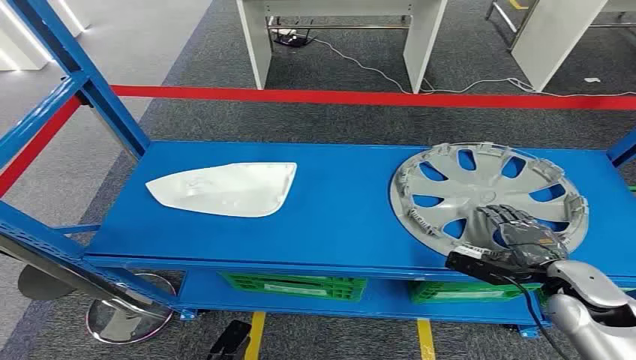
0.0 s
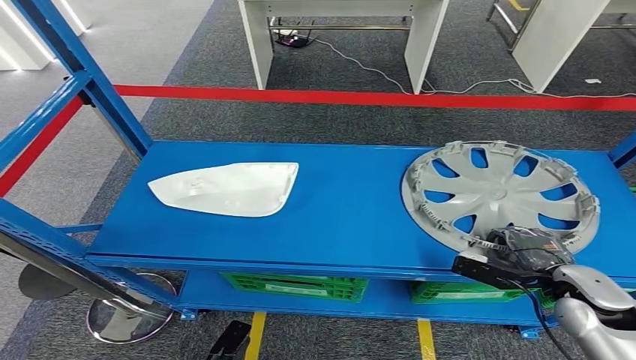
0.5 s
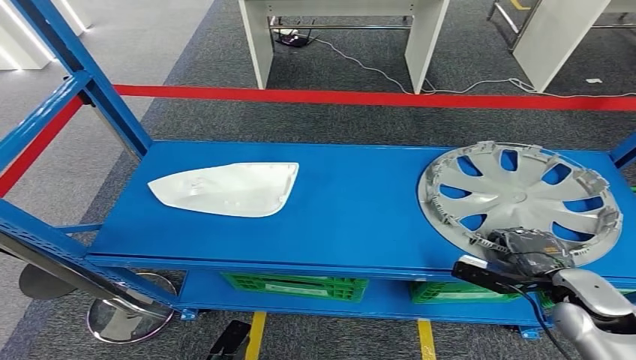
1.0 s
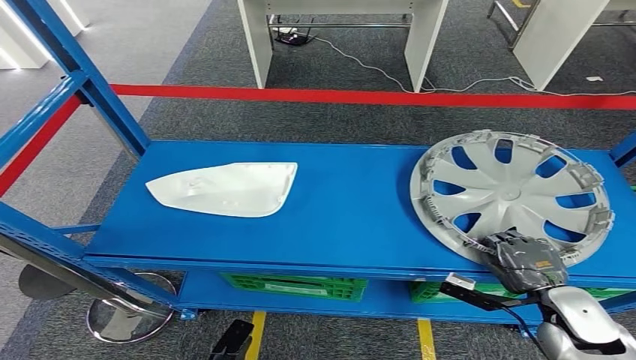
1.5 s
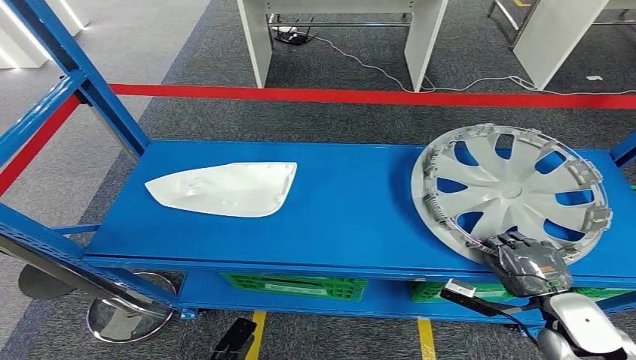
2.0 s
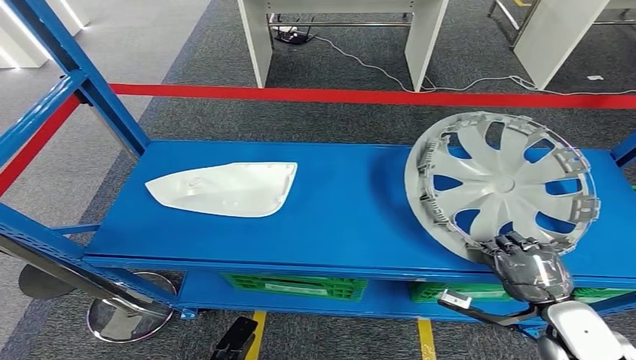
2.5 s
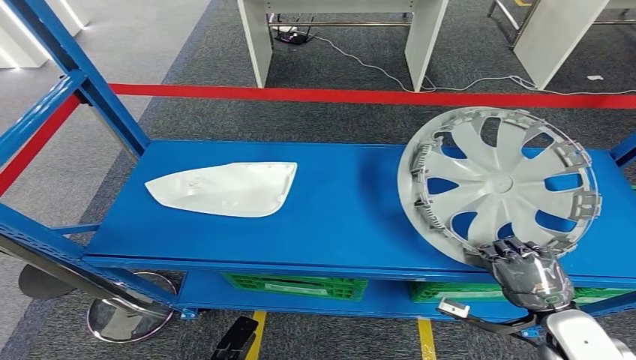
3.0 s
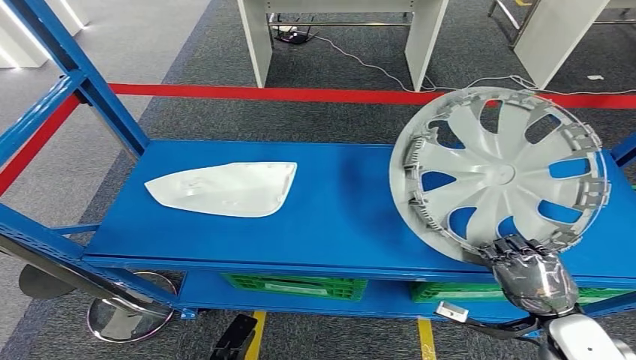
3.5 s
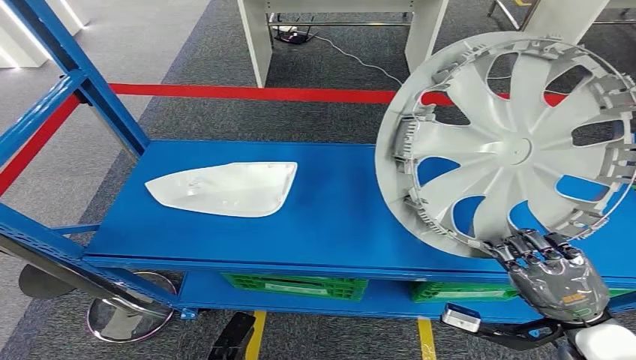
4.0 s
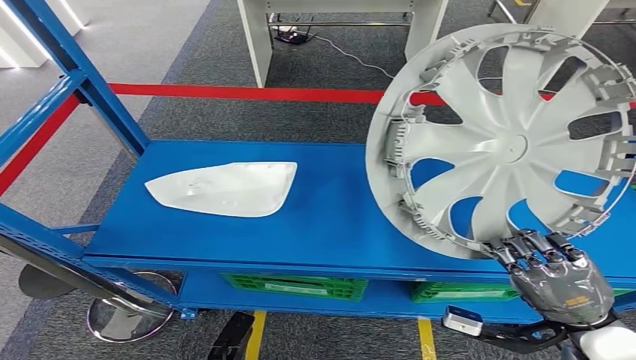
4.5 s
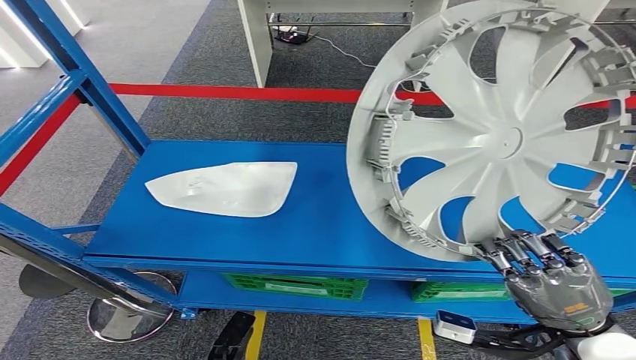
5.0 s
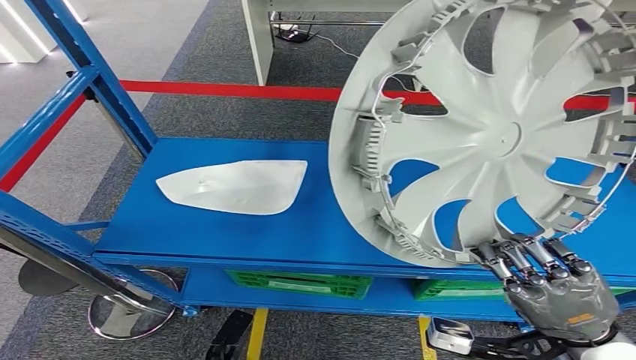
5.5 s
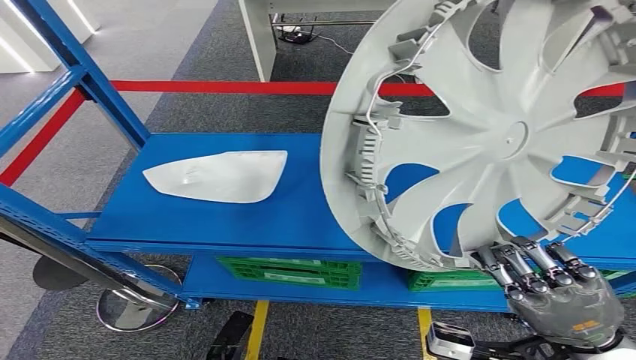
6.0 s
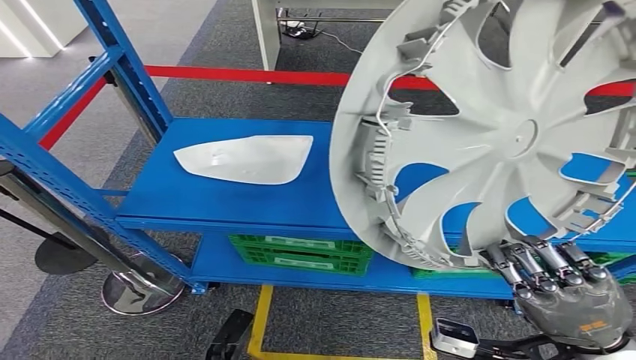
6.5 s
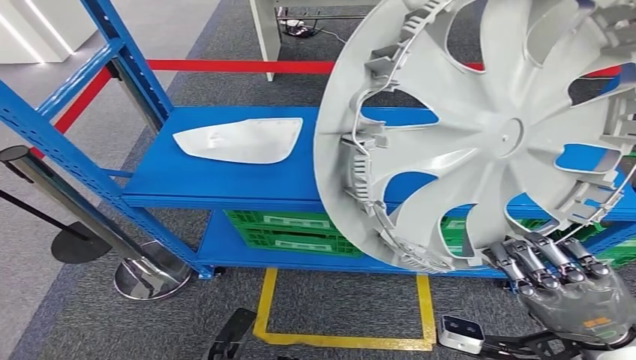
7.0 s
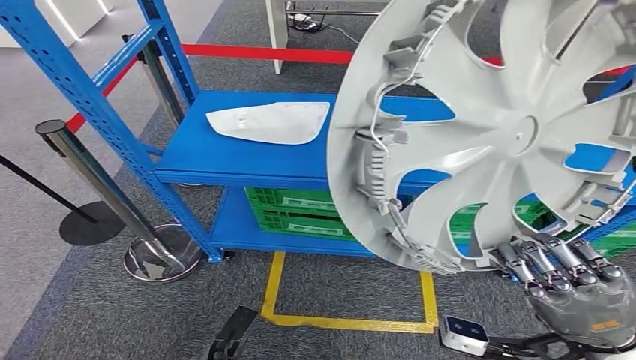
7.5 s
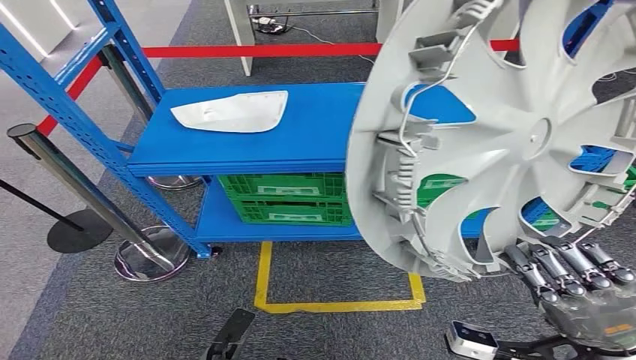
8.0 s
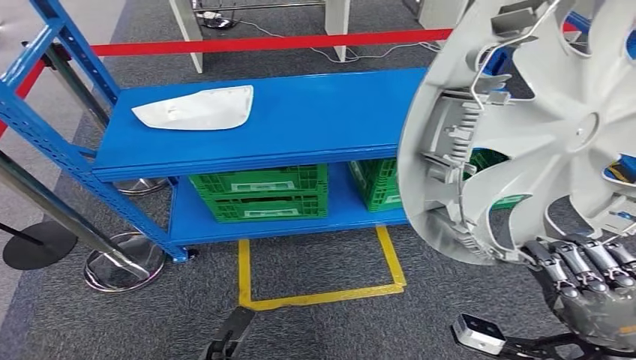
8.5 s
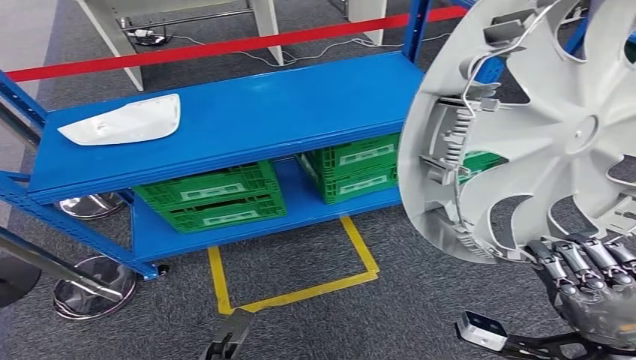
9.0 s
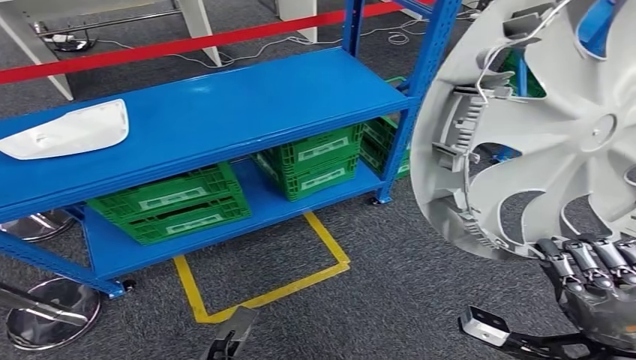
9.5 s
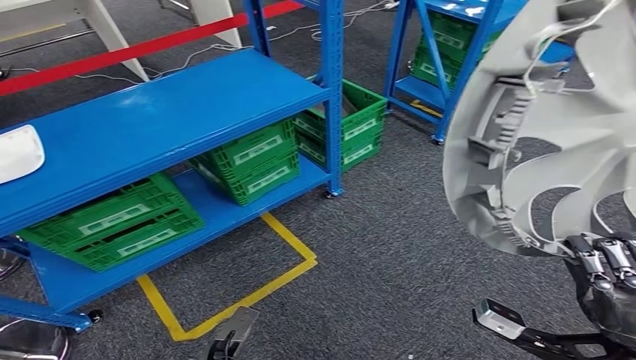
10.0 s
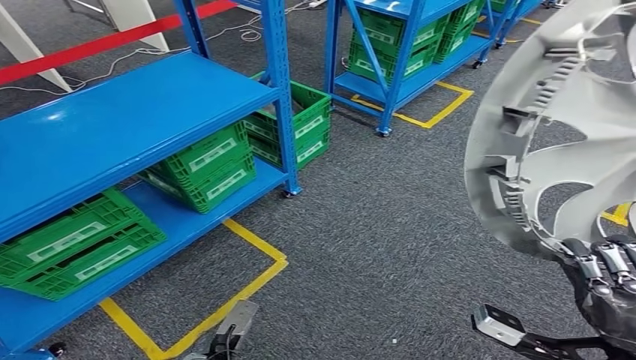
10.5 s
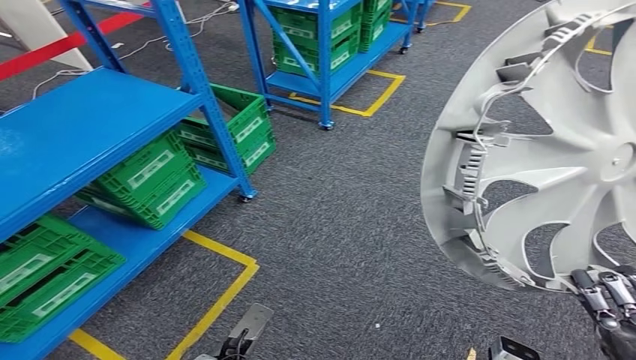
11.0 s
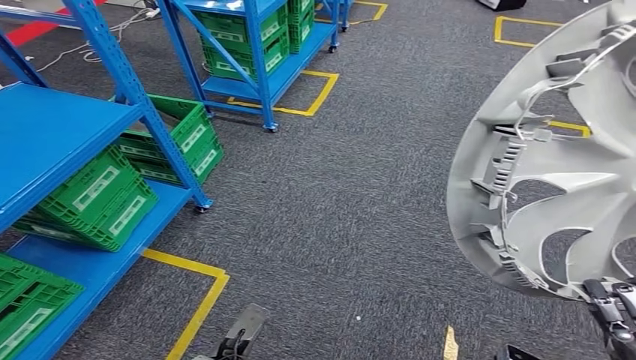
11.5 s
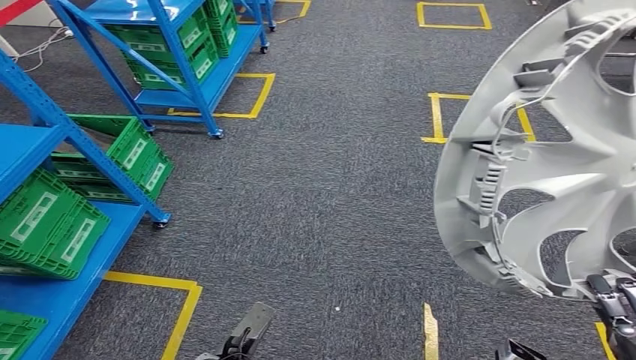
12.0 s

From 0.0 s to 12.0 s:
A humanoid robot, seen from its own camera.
Step, from 0.0 s to 4.0 s: Take small components from the rack.

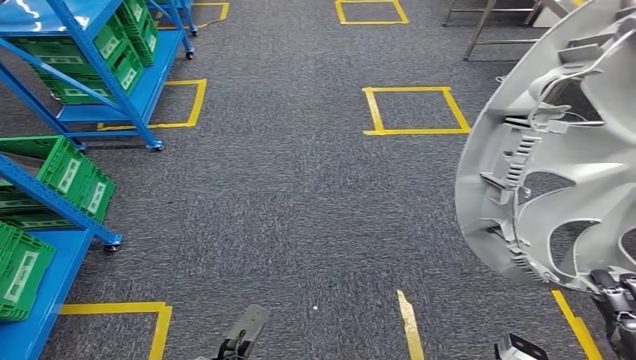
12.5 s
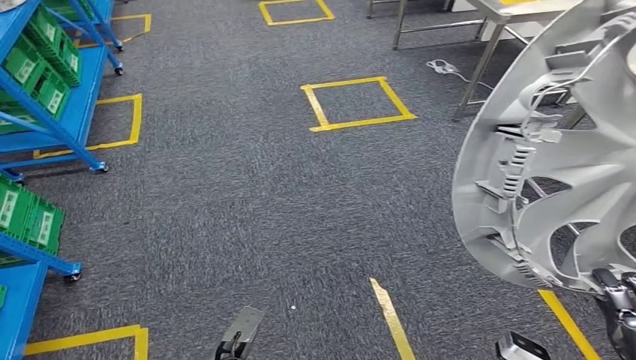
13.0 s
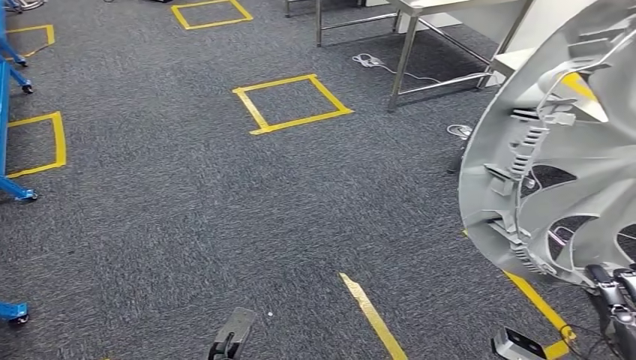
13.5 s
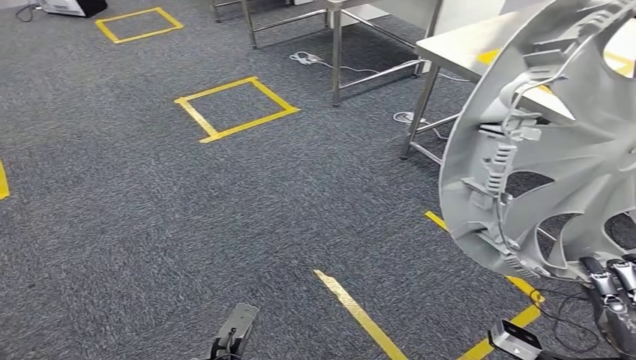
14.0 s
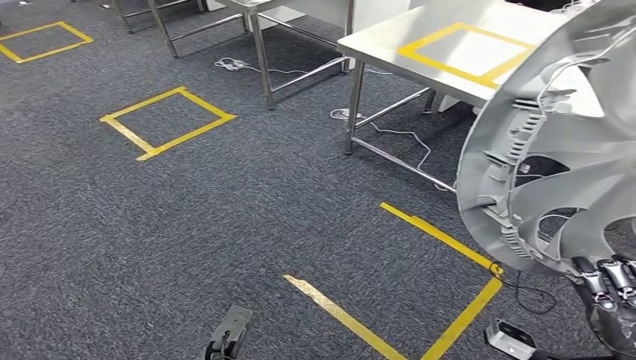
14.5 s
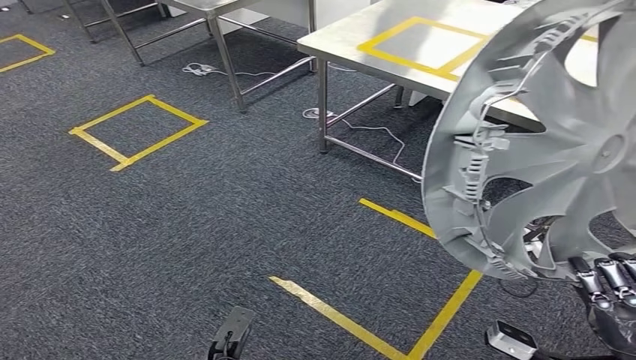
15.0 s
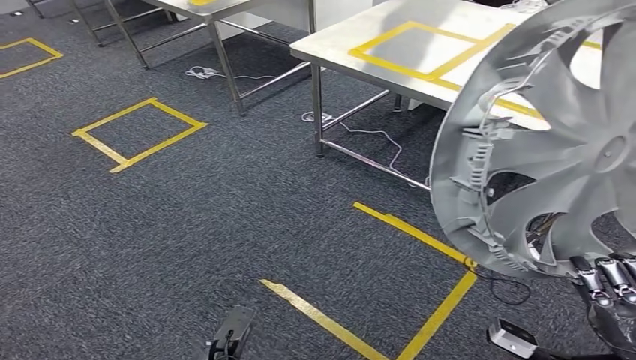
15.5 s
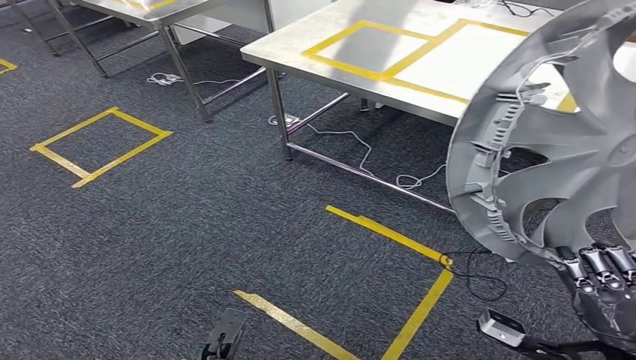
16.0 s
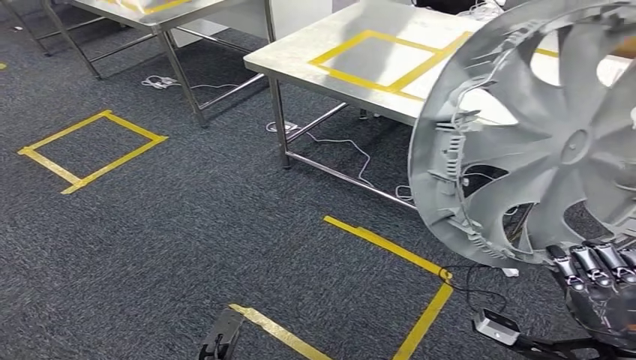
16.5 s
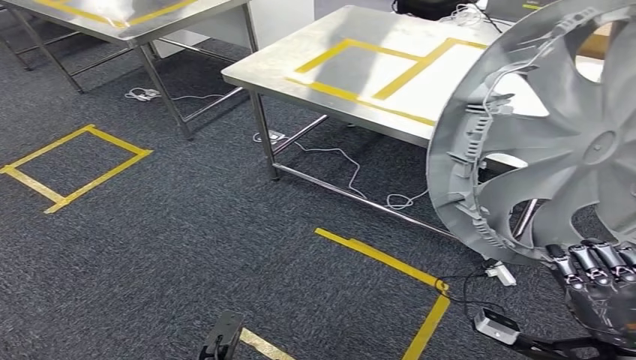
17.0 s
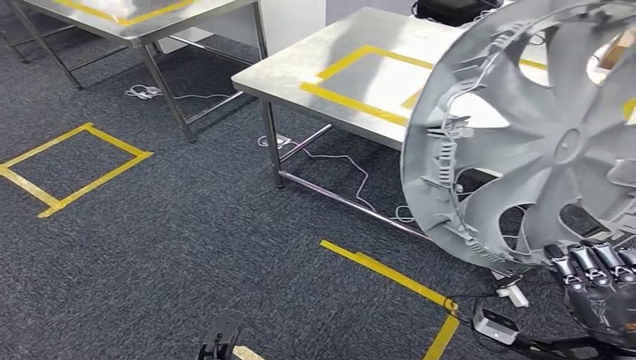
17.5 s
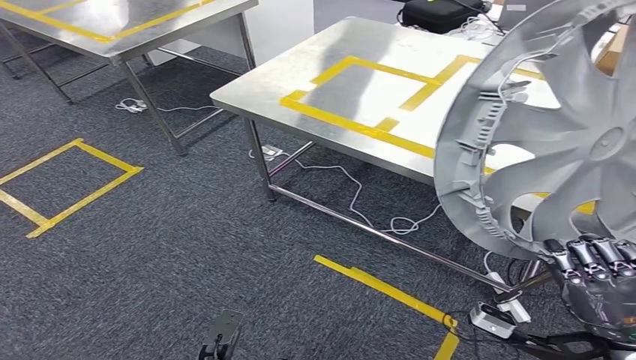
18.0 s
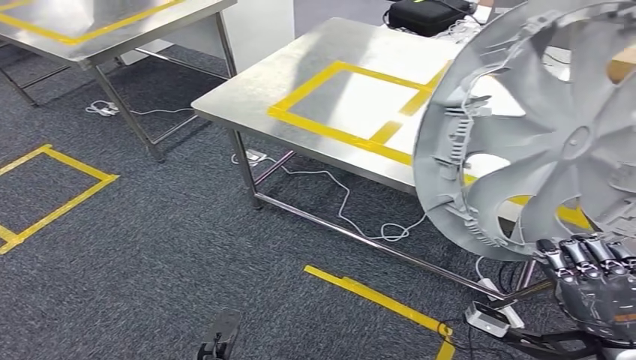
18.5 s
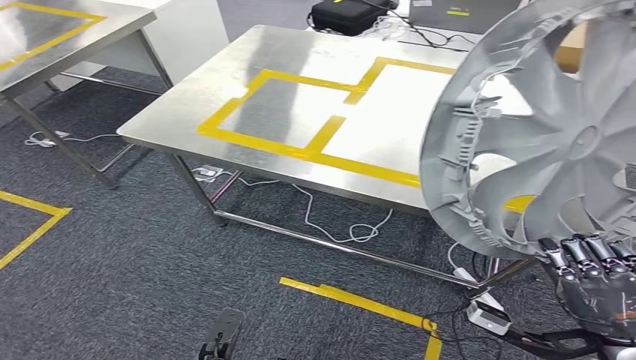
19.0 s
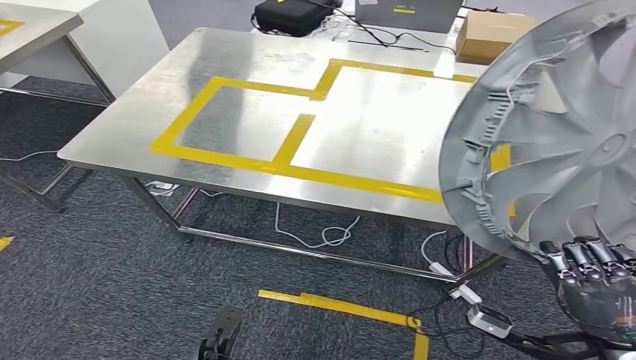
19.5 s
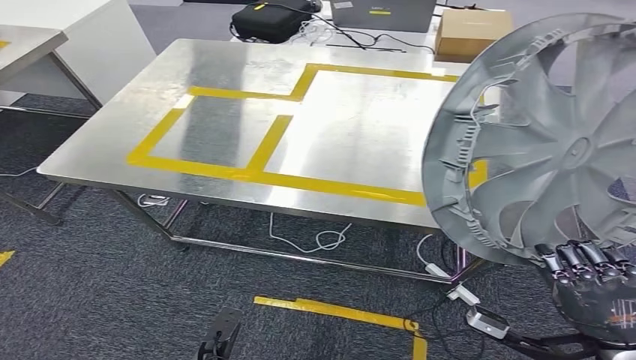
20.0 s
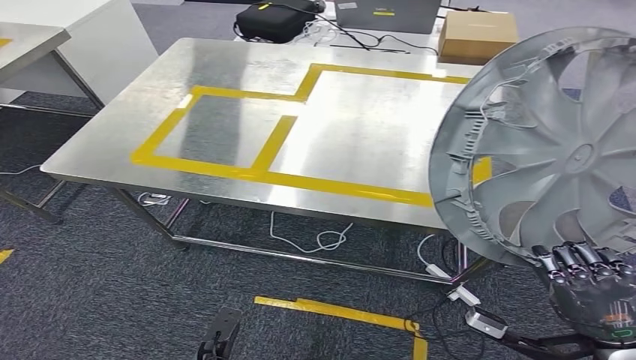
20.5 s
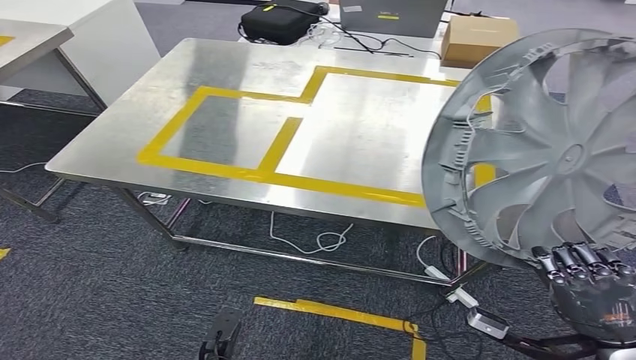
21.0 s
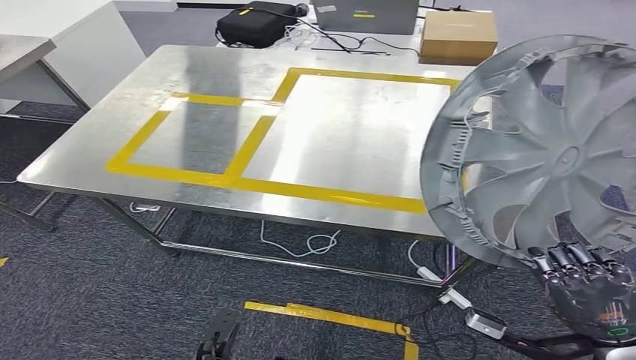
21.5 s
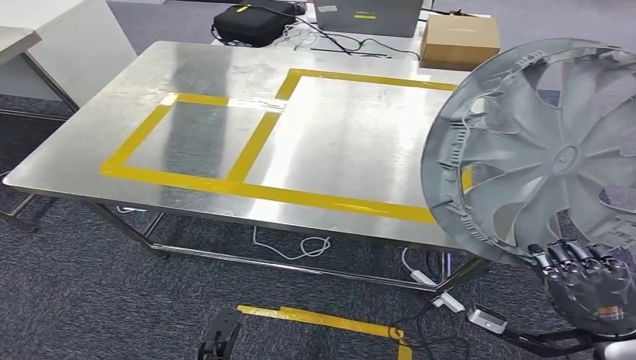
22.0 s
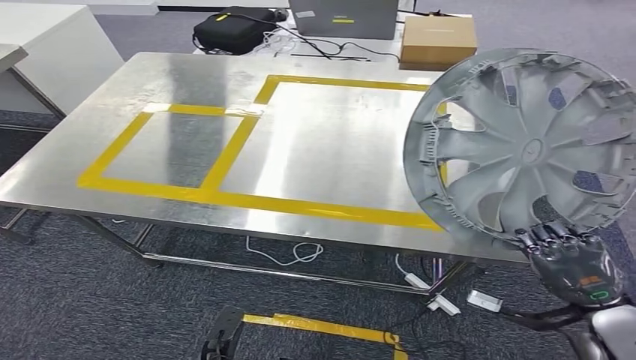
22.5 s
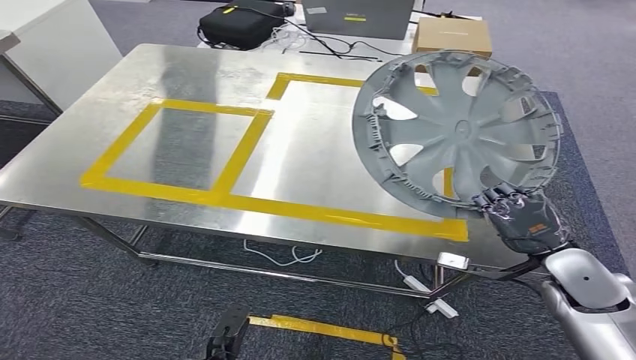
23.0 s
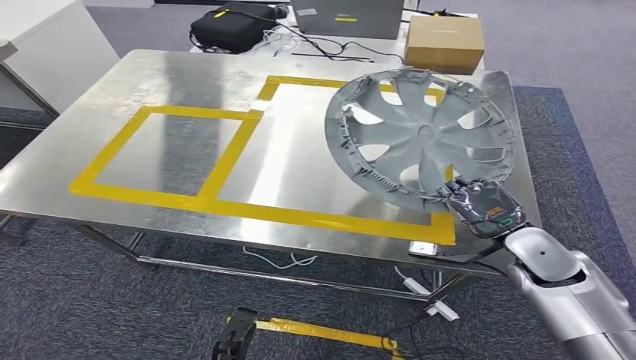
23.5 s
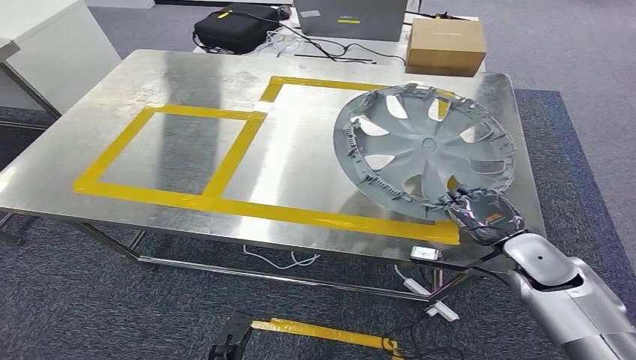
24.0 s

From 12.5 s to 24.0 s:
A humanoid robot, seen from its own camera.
Step, from 12.5 s to 21.0 s: Move the small parts to the workbench.
